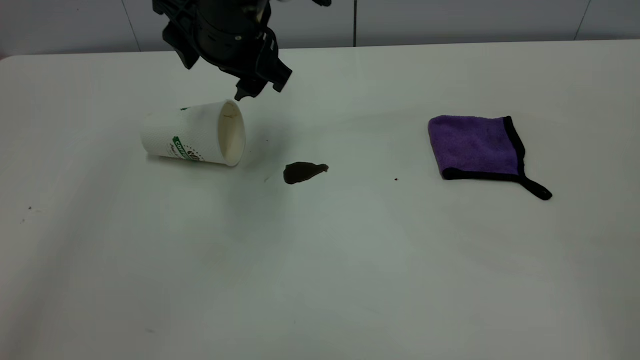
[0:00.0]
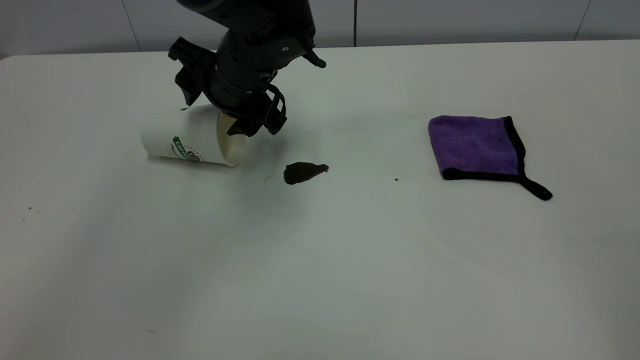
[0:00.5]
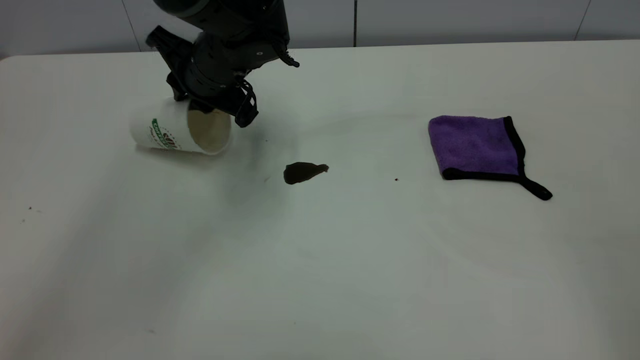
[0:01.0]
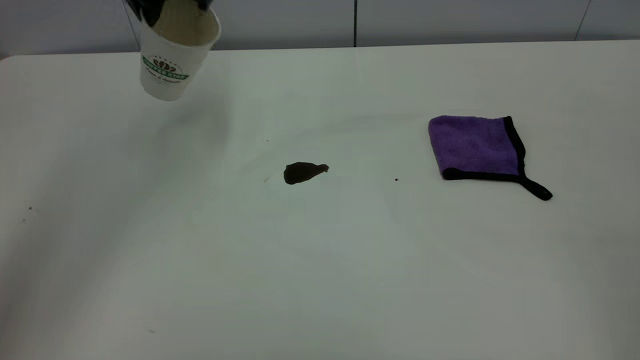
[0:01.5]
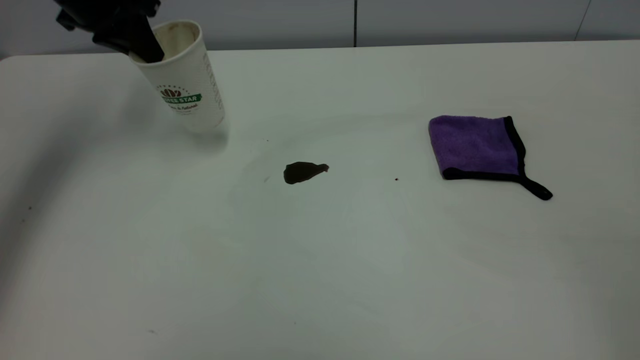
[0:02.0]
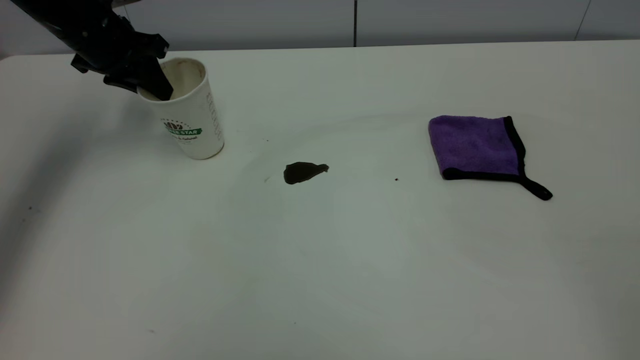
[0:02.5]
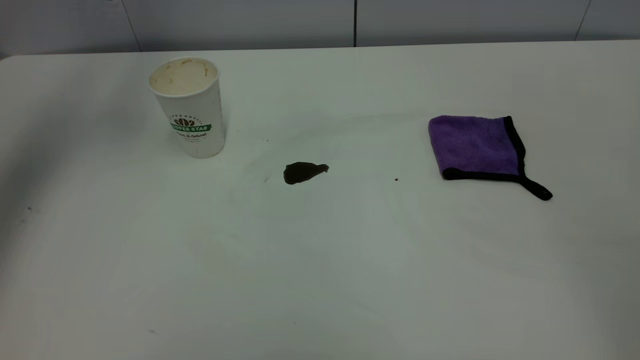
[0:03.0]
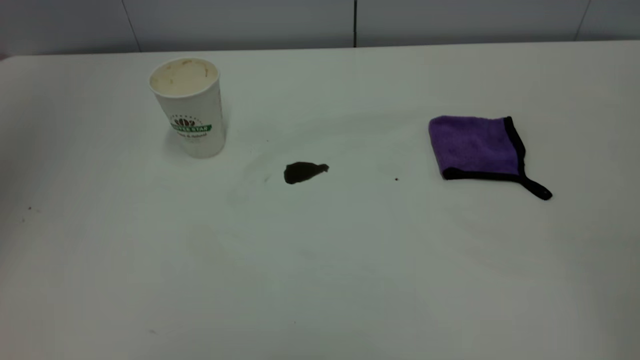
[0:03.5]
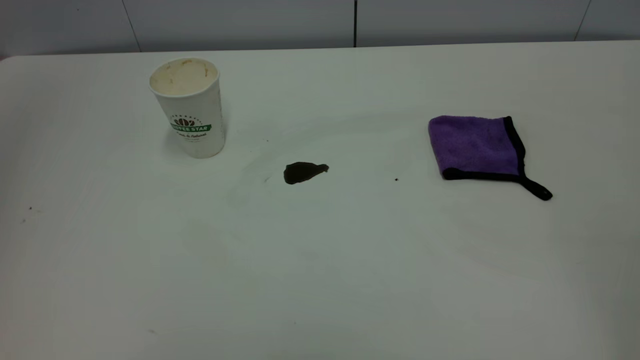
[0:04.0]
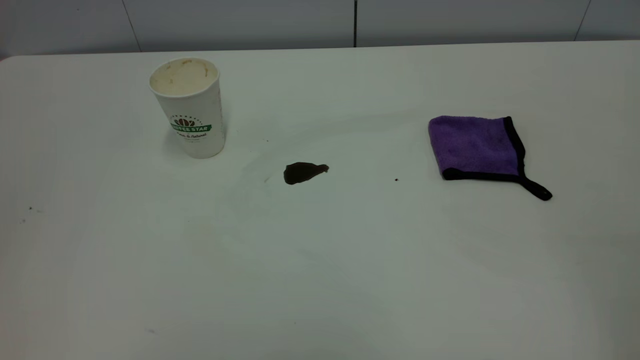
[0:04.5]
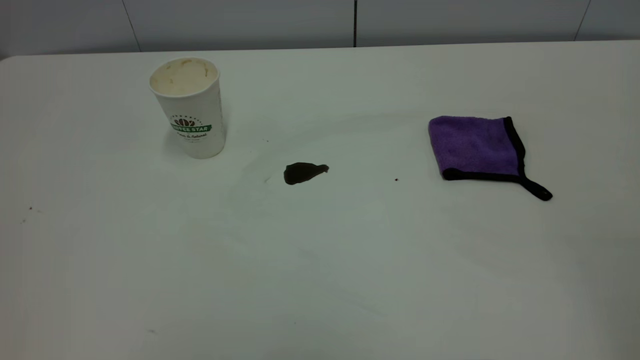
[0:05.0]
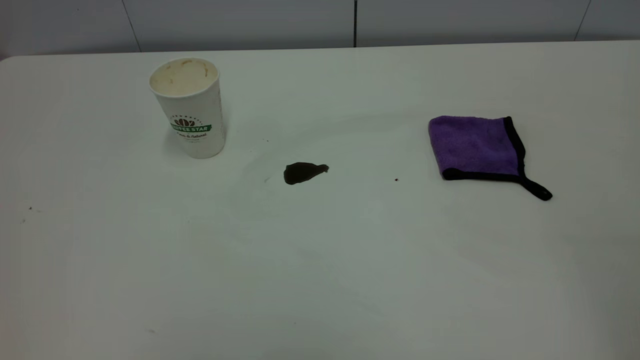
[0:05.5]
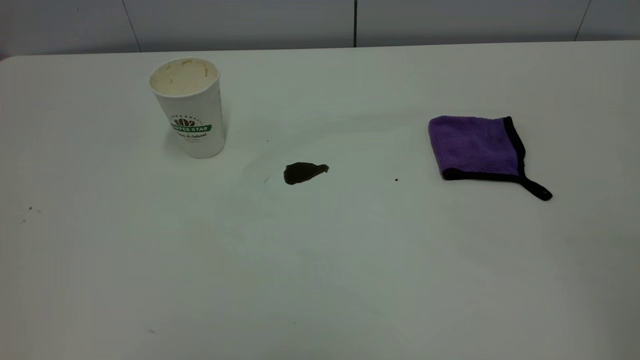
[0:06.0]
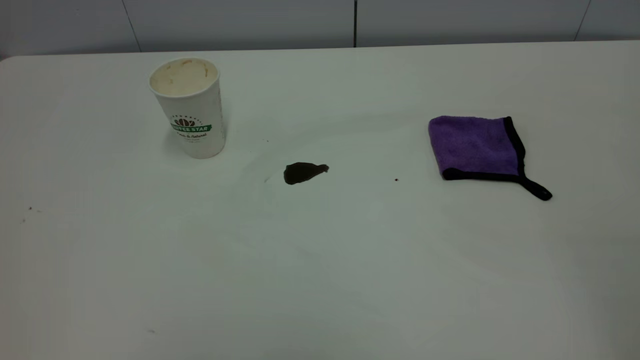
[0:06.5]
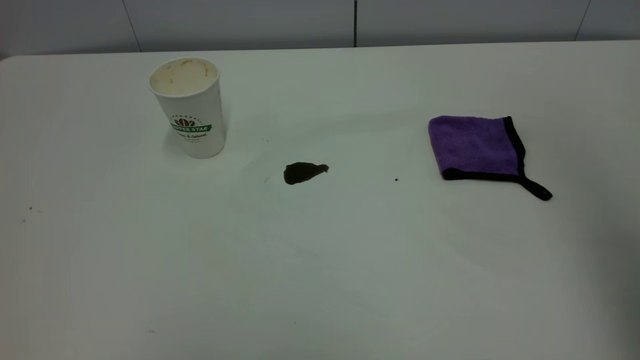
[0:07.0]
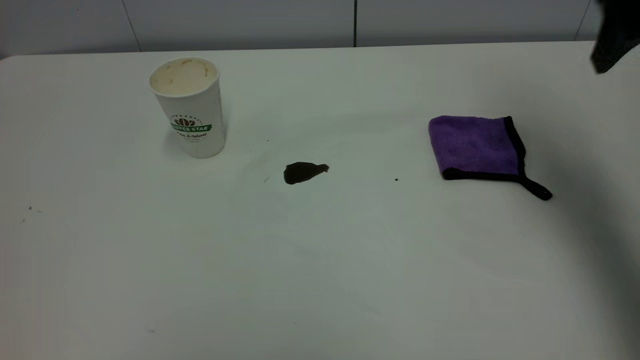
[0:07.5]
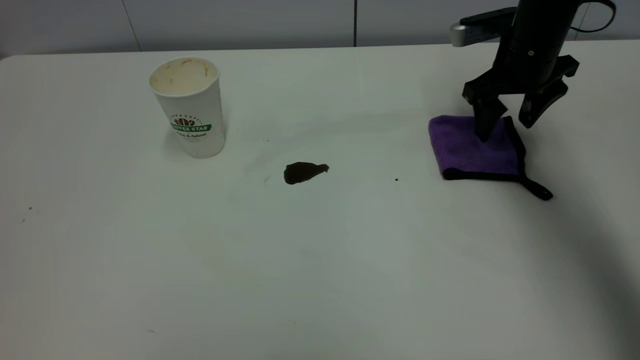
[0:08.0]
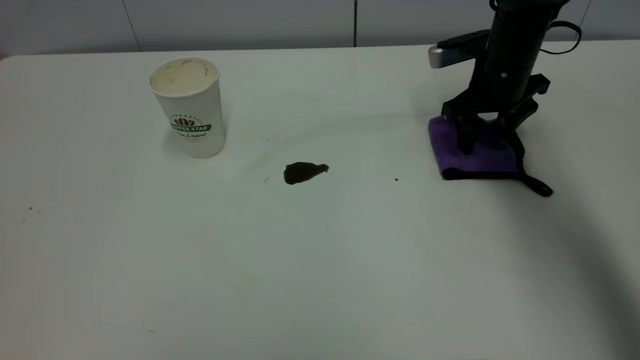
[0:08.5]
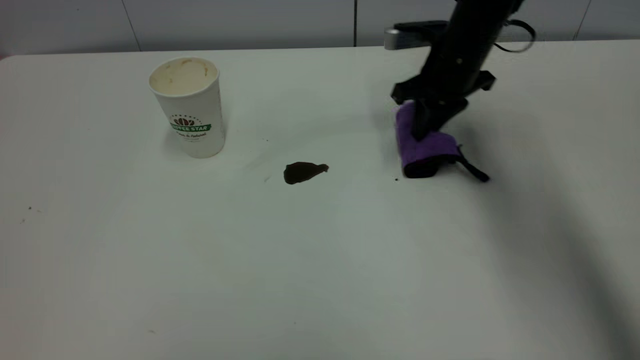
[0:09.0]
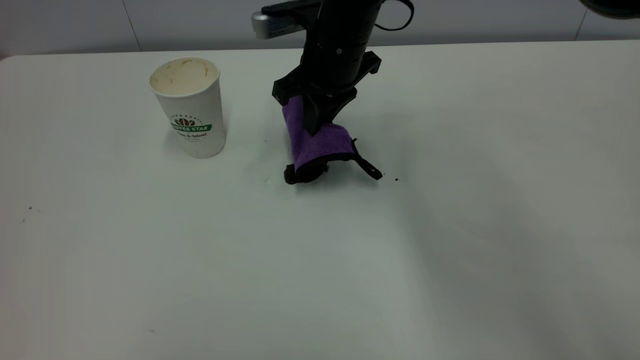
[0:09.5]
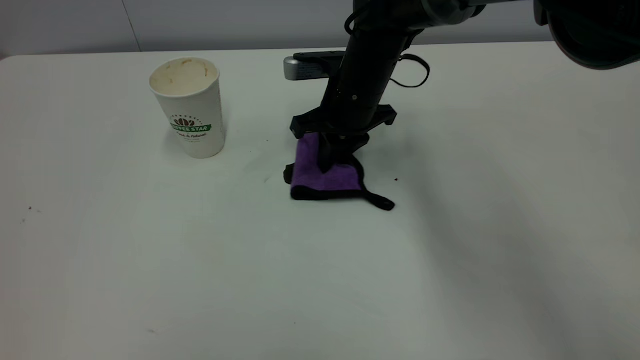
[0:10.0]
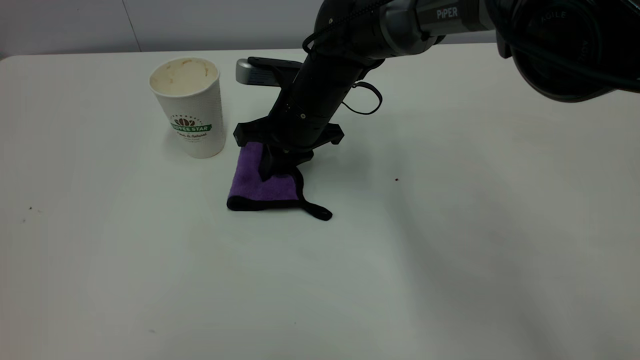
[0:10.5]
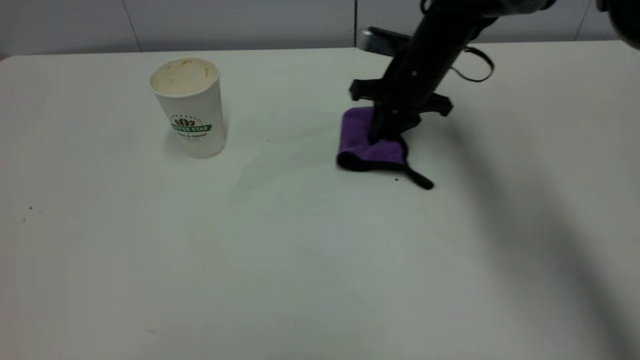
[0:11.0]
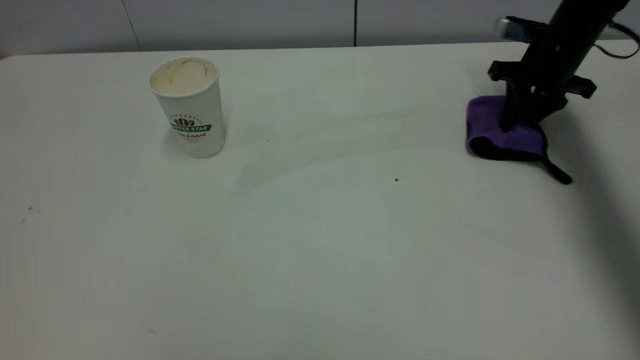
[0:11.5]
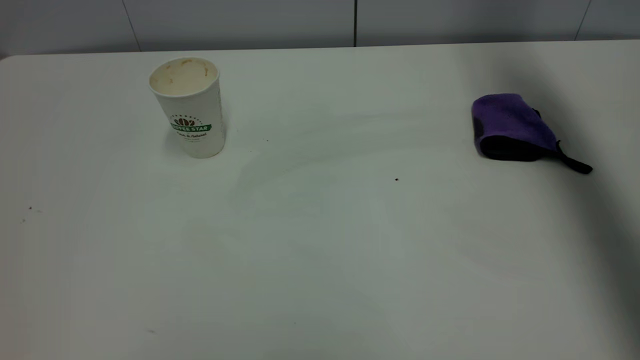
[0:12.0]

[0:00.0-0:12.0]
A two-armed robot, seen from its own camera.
Task of the whole recording: the left gripper pick up the fallen cup and place it upright, the right gripper grasp the purple rag and wipe the coffee stain on the table, the right gripper put the purple rag back in its original position.
Step, 0:00.0 to 0:02.5: Stand the paper cup upright.
Step, 0:03.0 to 0:11.5: Wipe the stains off the table with a rag.
0:00.0 to 0:02.0: The left gripper heads to the left and forward, covering about 20 cm, and closes up.
0:02.0 to 0:04.0: The left gripper goes roughly 40 cm upward and backward, and opens, then closes again.
0:06.0 to 0:08.0: The right gripper moves forward and downward, about 50 cm.
0:08.0 to 0:10.0: The right gripper heads to the left, covering approximately 20 cm, and closes its fingers.
0:10.0 to 0:12.0: The right gripper shifts about 35 cm to the right and upward, and opens.

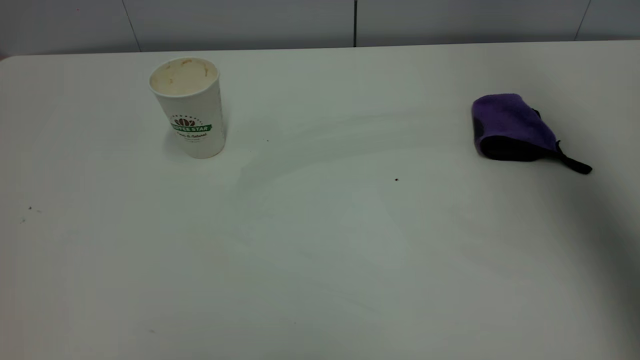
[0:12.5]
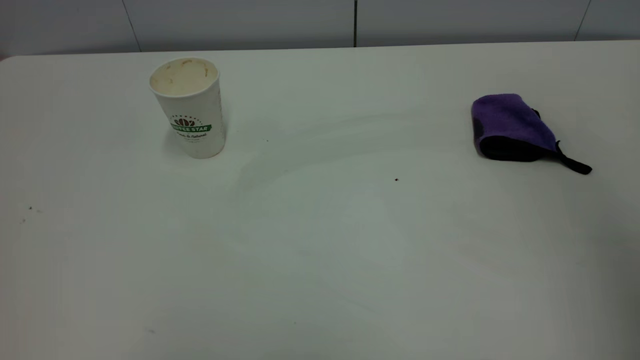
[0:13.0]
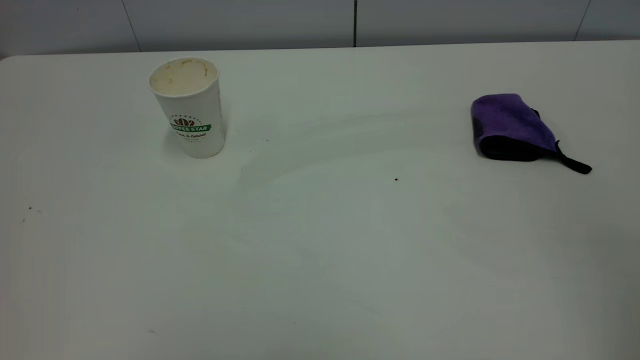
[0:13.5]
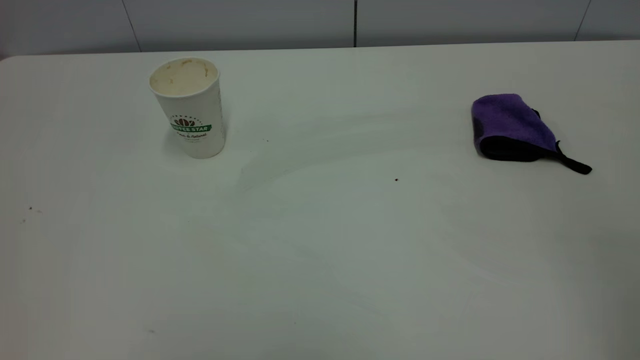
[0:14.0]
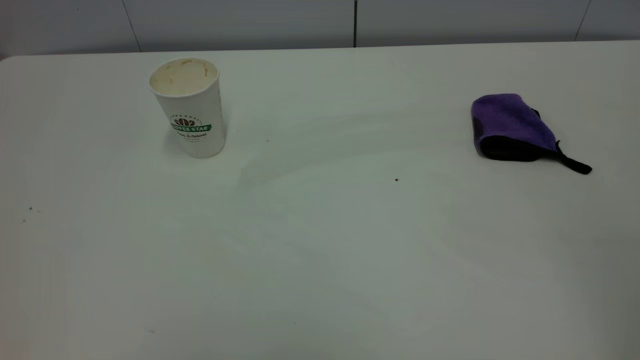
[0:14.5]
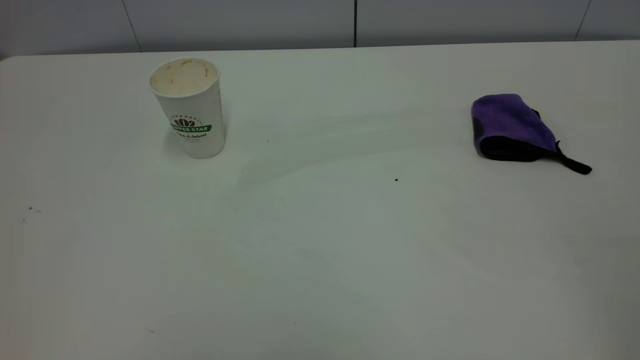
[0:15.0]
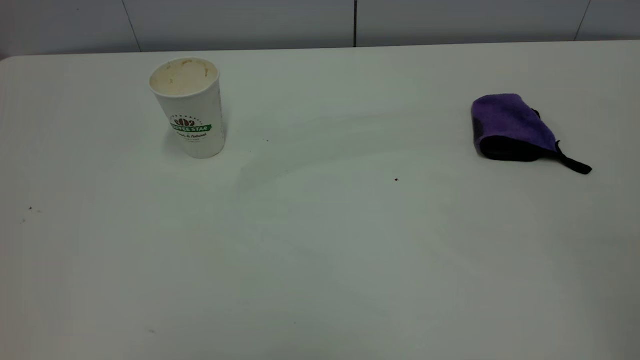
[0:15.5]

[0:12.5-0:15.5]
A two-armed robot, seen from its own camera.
Task of the whole recording: the left gripper pick up the fallen cup and place it upright, the right gripper grasp the purple rag and wipe the coffee stain on the table, the right gripper put the purple rag back in its original position.
0:12.5 to 0:14.0: The right gripper shifts approximately 30 cm backward and downward.
